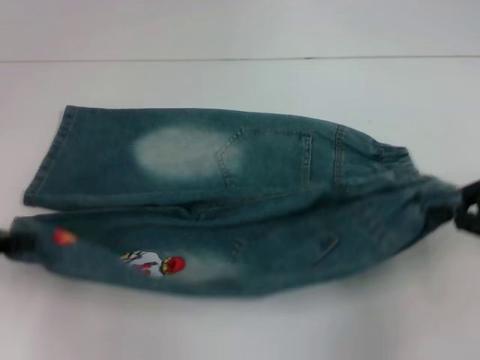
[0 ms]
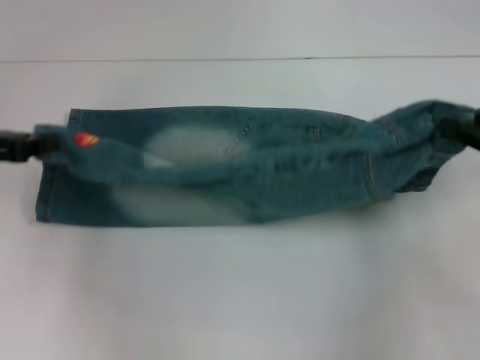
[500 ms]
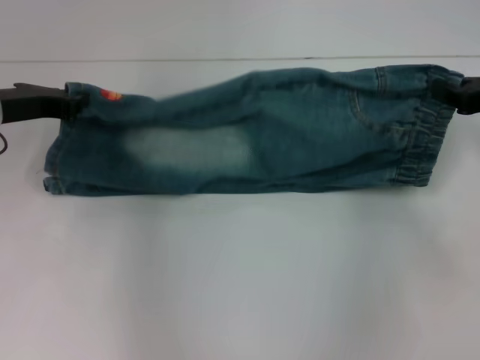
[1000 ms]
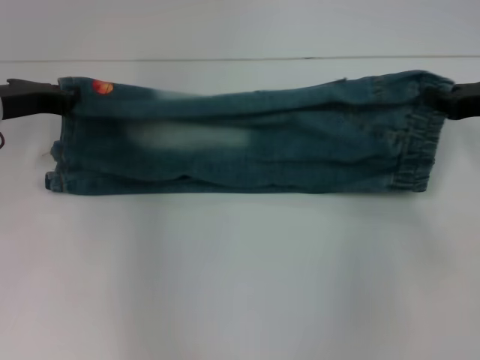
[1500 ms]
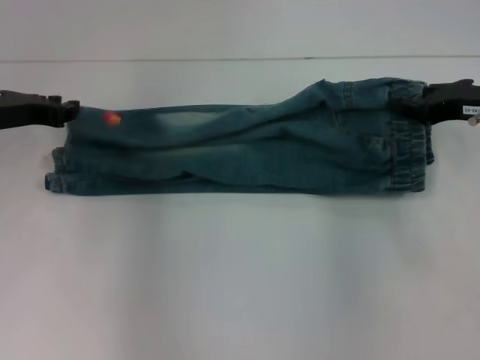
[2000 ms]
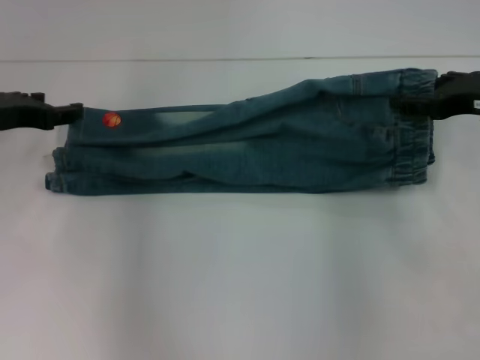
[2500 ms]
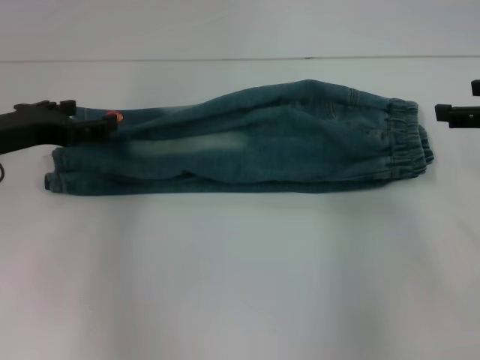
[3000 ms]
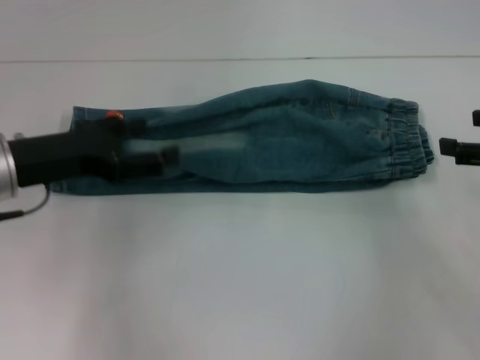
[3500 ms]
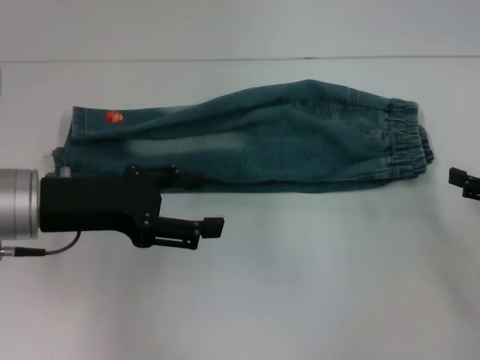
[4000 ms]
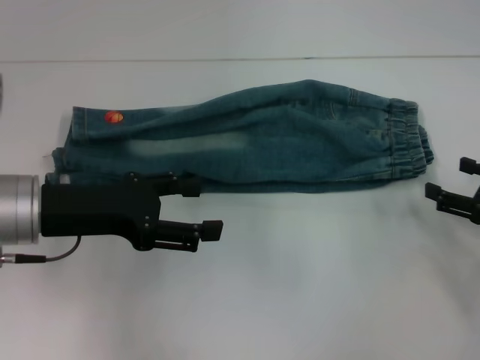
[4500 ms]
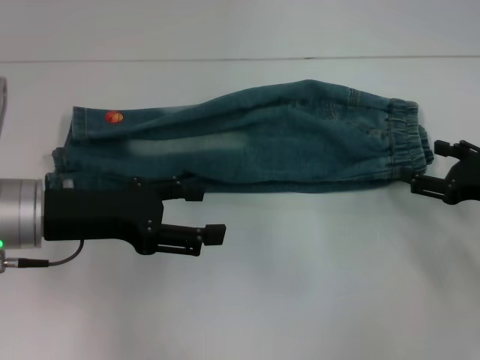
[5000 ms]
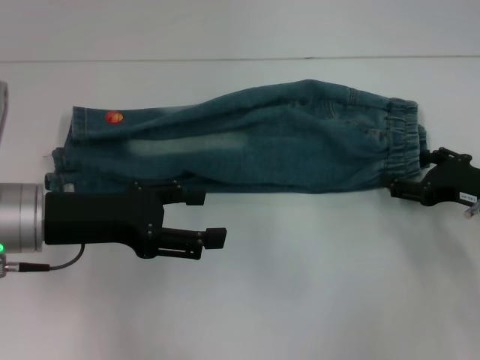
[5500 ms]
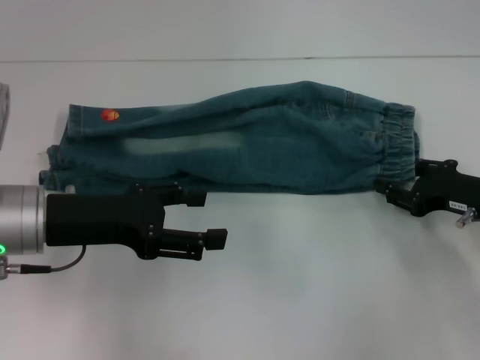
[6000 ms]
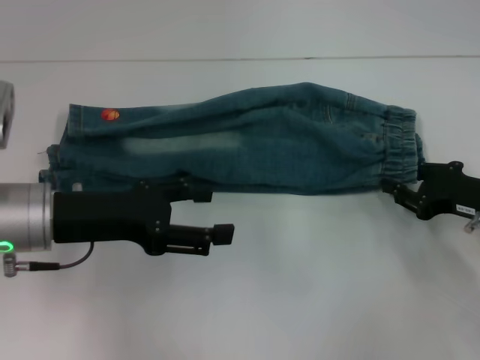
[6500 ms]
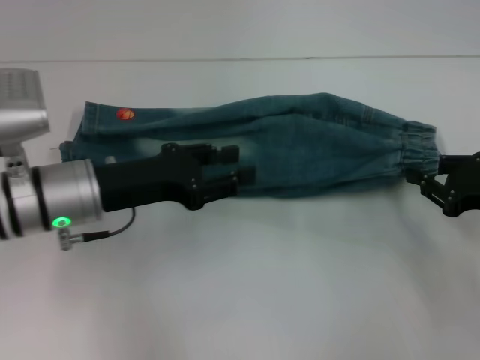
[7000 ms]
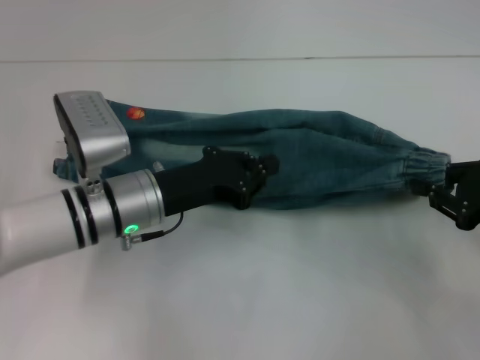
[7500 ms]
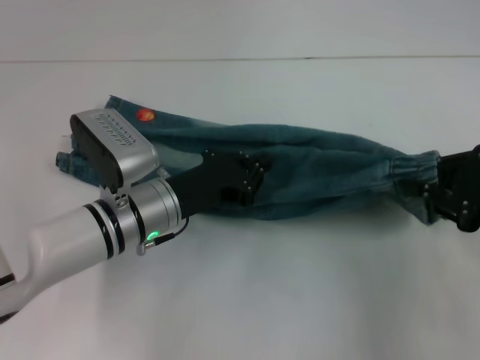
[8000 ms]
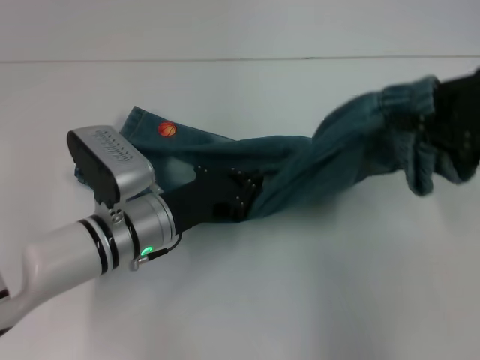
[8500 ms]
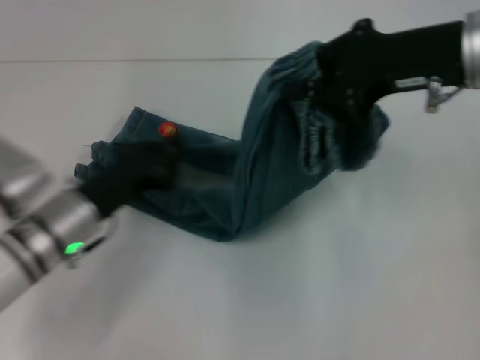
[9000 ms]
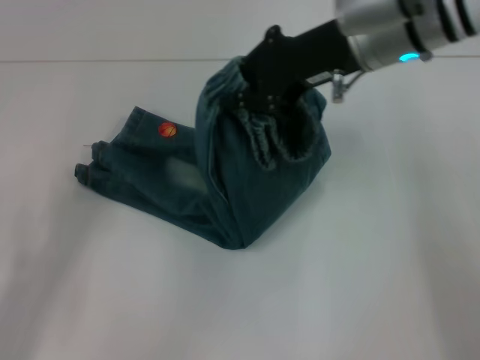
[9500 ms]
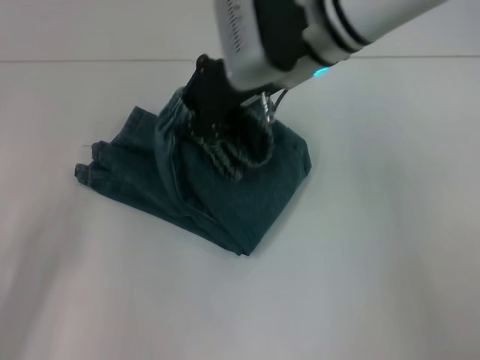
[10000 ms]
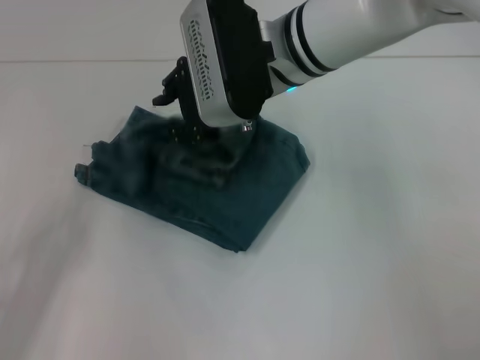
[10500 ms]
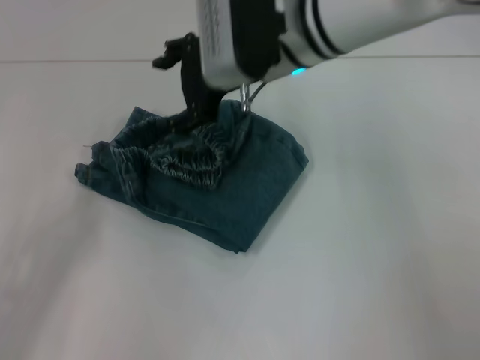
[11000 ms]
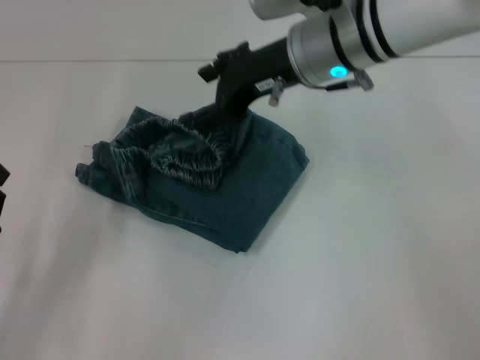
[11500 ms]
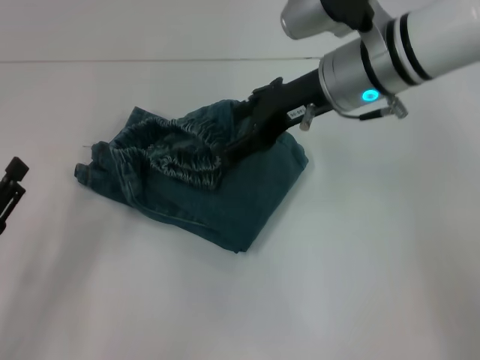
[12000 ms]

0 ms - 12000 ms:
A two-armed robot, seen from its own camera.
Step, 0 ms - 1500 ms: Fold upward with your left hand.
Step, 3000 ms - 6500 ms: Grab the waistband with your right hand.
Step, 7000 ms - 8500 ms: Press the middle of the pants with your left hand.
0 ms - 2000 ms: The left gripper shifts about 15 cm forward and to the right. Meanwhile the right gripper is displaced forward by some 10 cm.
2000 ms - 4000 ms: The grippers both shift backward and to the right by roughly 10 cm. The left gripper opens up, while the right gripper opens.
4000 ms - 6000 ms: The right gripper heads to the left, covering some 5 cm.
6000 ms - 8000 ms: The left gripper moves to the right and downward, approximately 15 cm, and closes. The right gripper is displaced upward and backward by approximately 10 cm, and closes its fingers.
8000 ms - 10000 ms: The left gripper moves to the left and backward, some 25 cm, while the right gripper moves to the left and forward, some 30 cm.
10000 ms - 12000 ms: The left gripper opens. Meanwhile the right gripper heads to the right, covering roughly 5 cm, and opens.

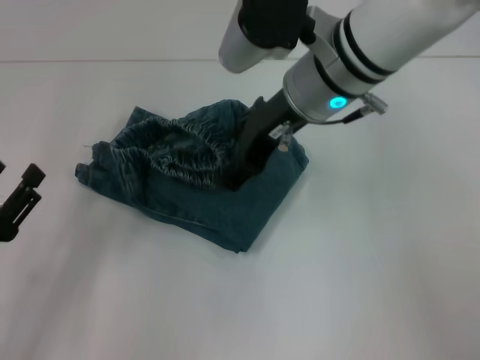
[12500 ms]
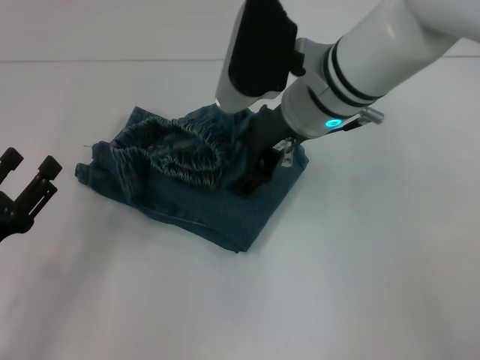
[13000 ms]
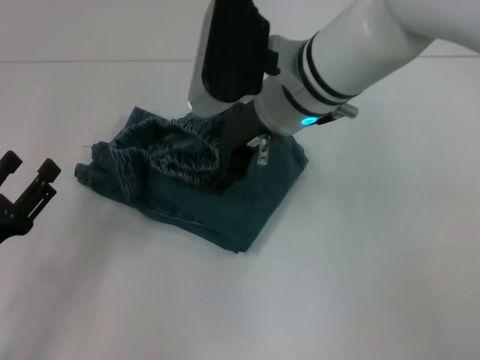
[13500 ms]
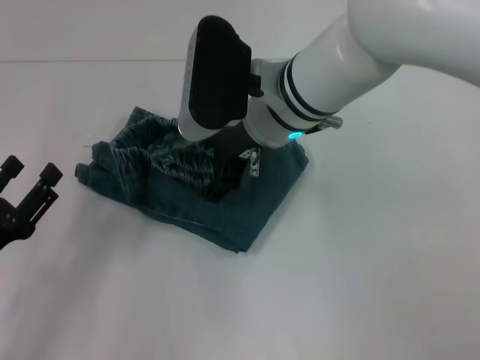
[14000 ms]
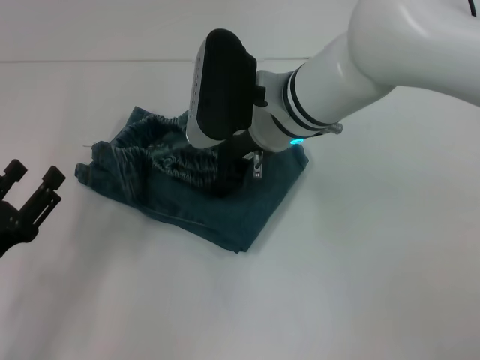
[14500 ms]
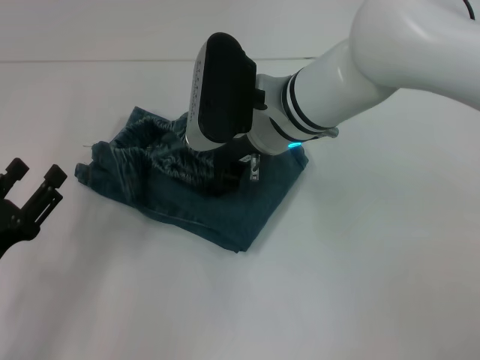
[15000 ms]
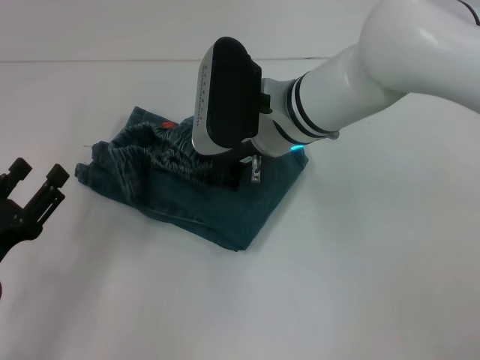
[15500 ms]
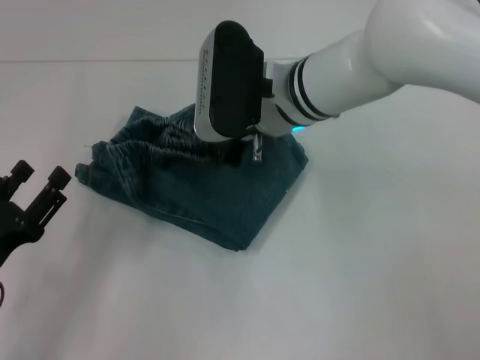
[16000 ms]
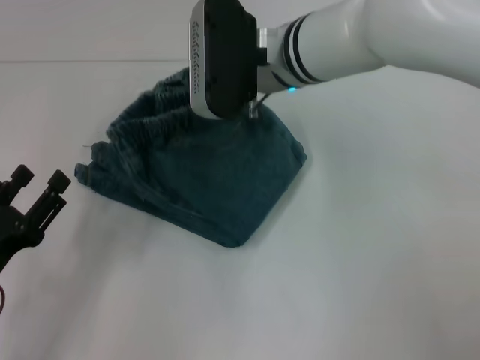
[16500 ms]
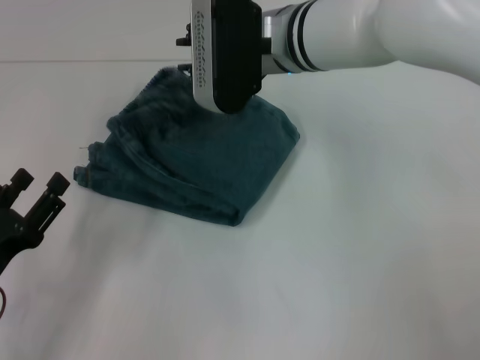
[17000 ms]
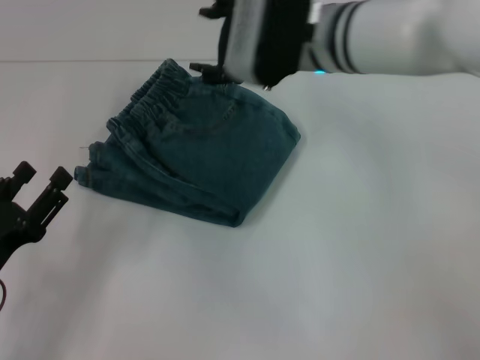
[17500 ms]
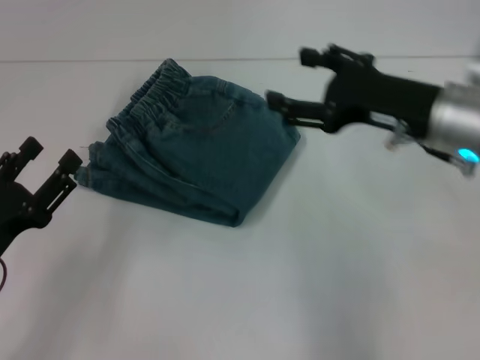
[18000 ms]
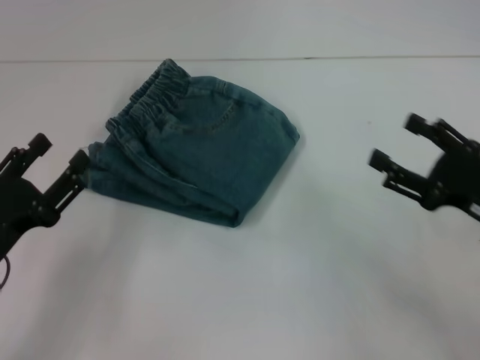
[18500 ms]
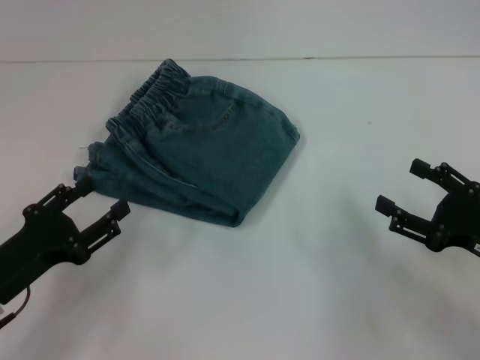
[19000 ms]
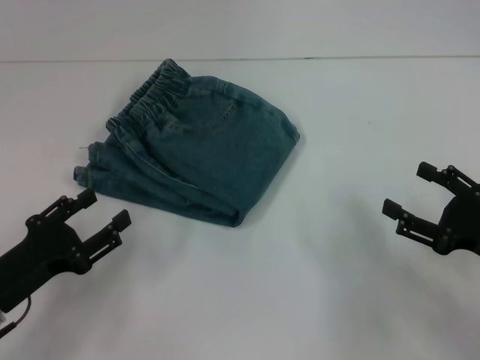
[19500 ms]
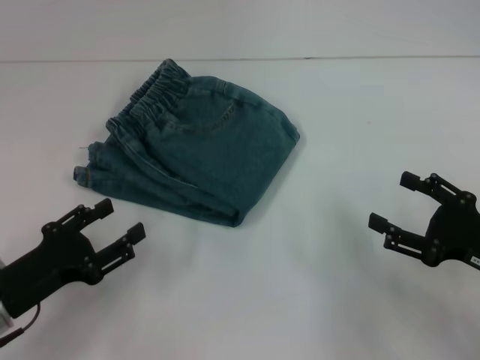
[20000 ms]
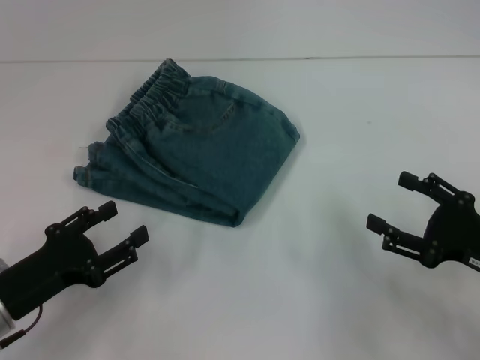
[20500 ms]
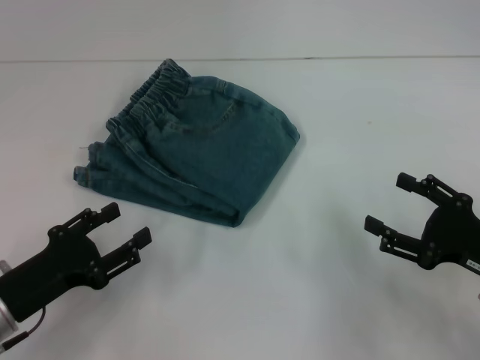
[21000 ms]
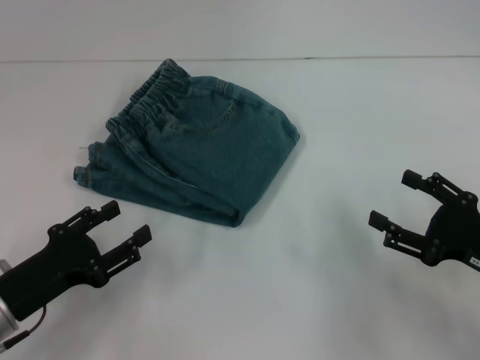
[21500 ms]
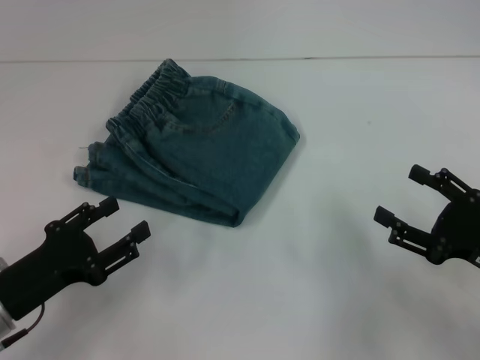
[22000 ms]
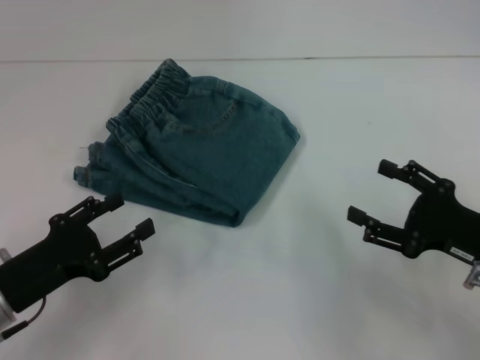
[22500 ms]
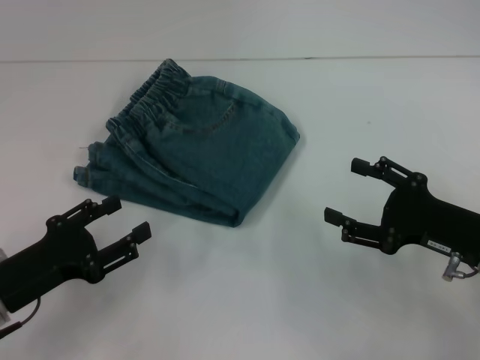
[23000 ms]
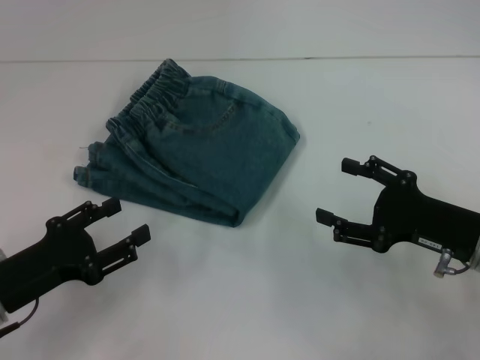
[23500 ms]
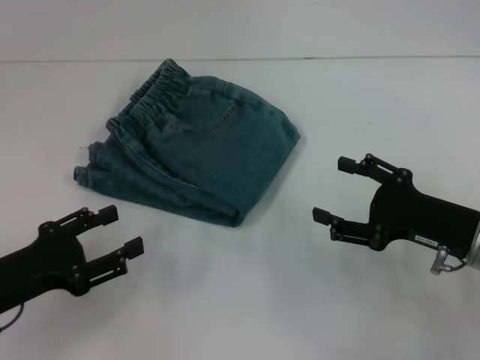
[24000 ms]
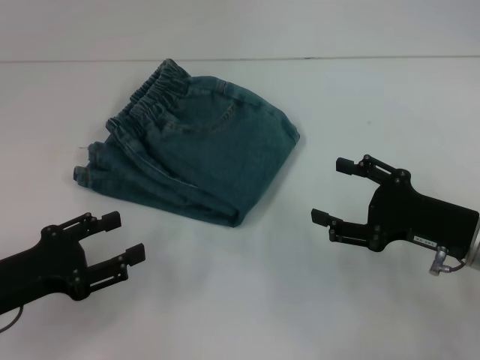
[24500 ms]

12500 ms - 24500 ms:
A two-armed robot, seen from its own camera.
Step, 12500 ms - 17000 ms: Fold to the left with your right hand.
12500 ms - 14500 ms: The right gripper travels downward by roughly 5 cm.
14500 ms - 16500 ms: The right gripper closes its fingers.
16500 ms - 18500 ms: The right gripper moves to the right, backward and downward, about 30 cm, and opens its fingers.
20500 ms - 24500 ms: The grippers stay close to where they were, moving slightly.

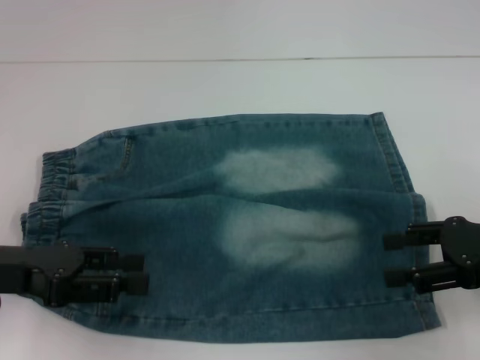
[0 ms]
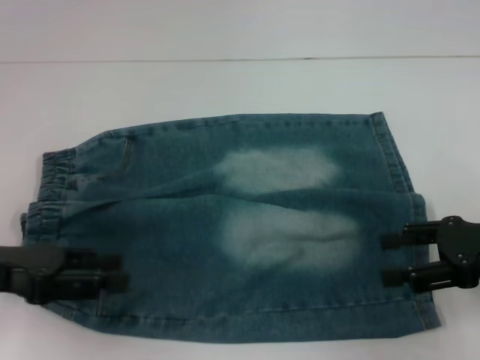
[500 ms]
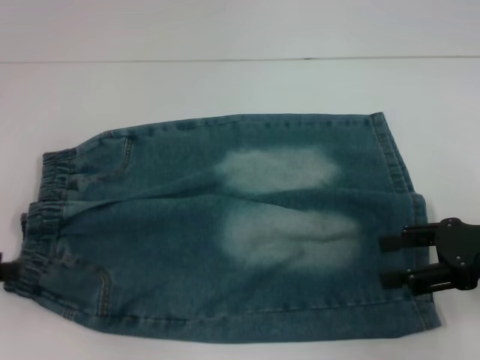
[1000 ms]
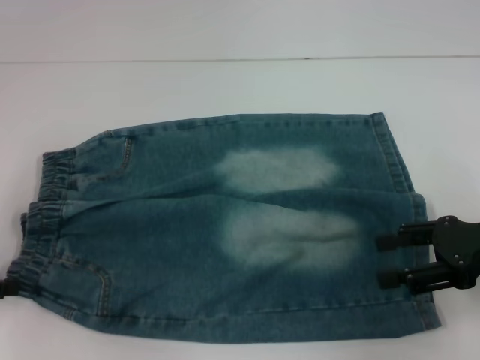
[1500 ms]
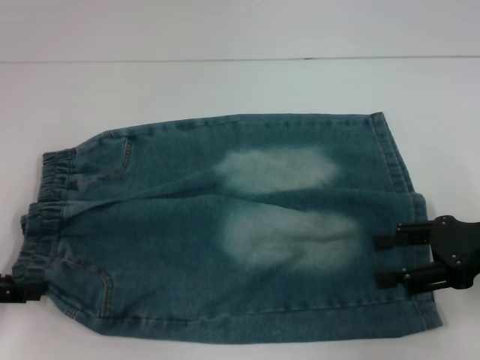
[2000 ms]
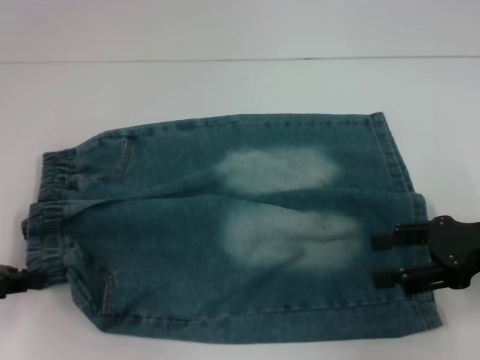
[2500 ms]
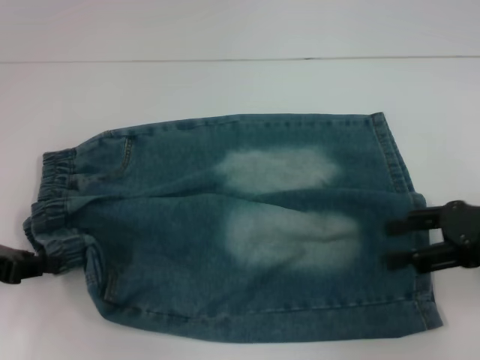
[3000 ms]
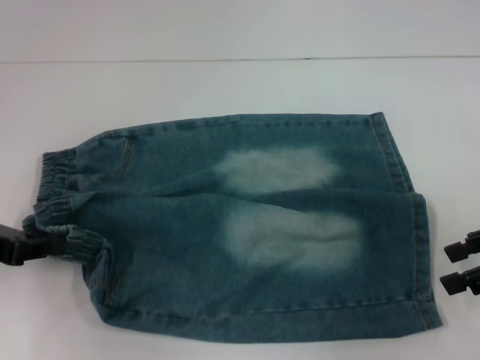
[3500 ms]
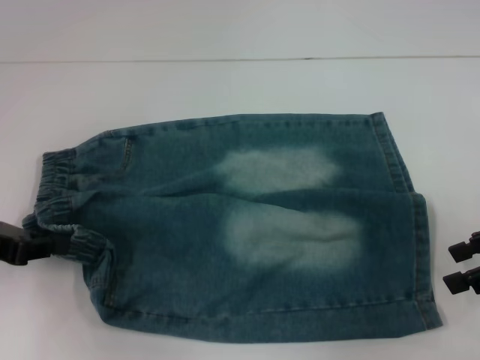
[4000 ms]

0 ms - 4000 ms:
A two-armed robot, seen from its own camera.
Step, 0 ms - 2500 ms: Hold the lower left waistband with your left hand.
0 ms - 2000 ms: The left gripper heads to the left, covering approximately 5 cm.
2000 ms - 4000 ms: The left gripper closes up, while the right gripper shifts by approximately 5 cm.
